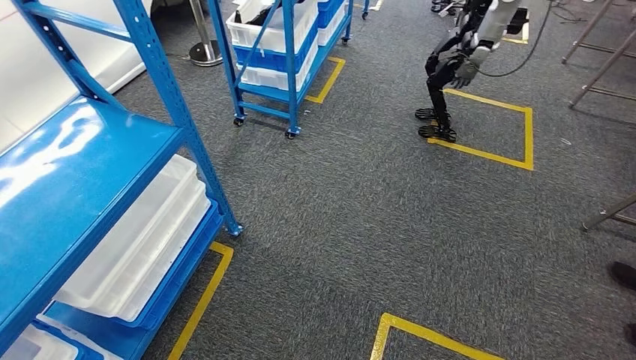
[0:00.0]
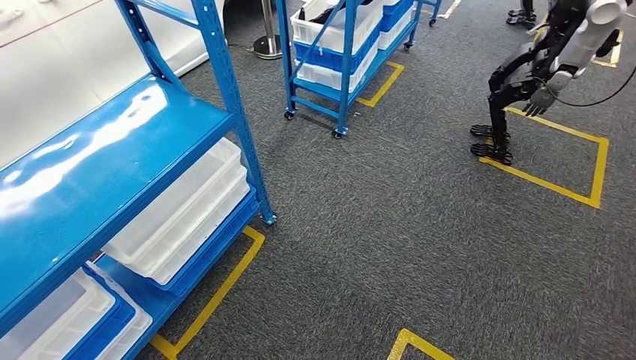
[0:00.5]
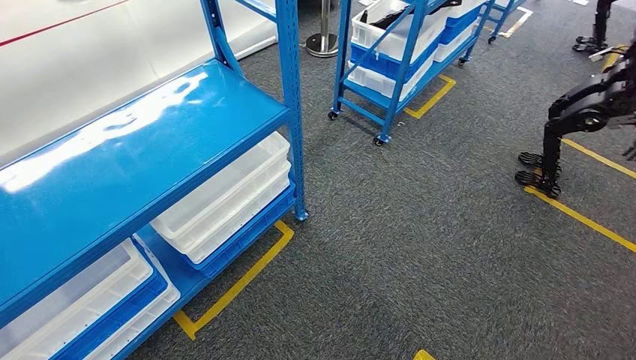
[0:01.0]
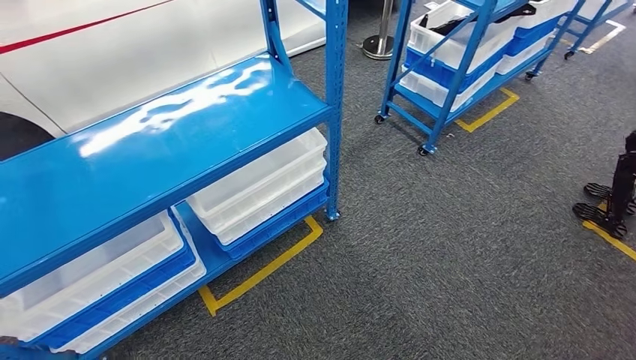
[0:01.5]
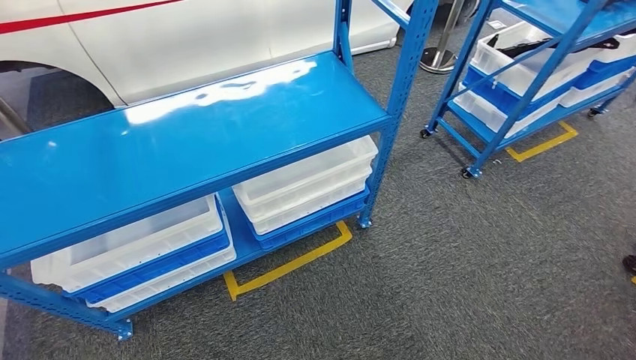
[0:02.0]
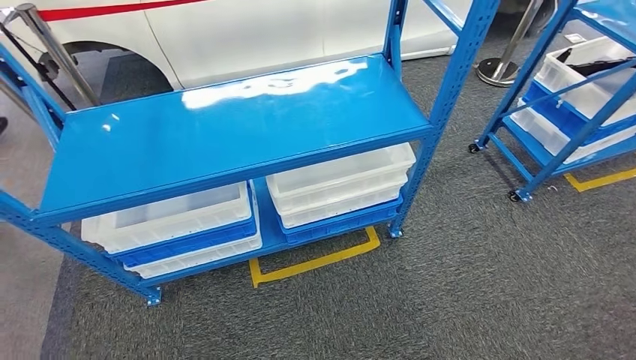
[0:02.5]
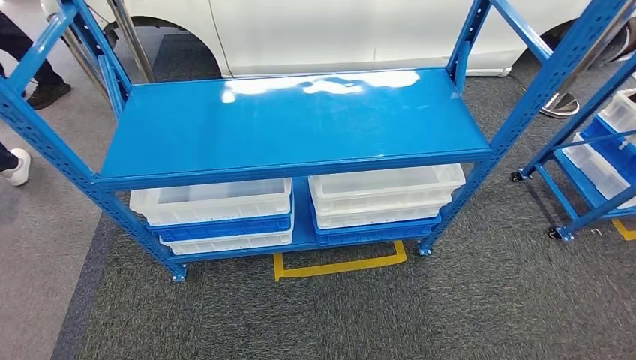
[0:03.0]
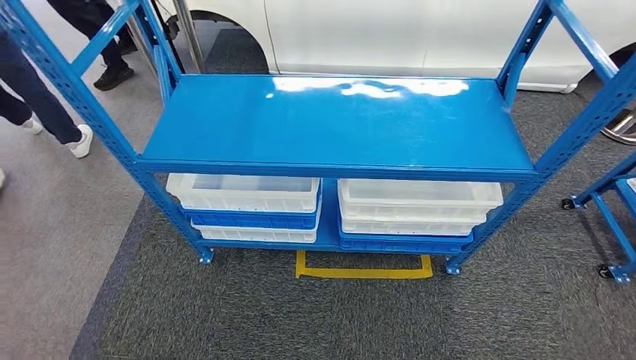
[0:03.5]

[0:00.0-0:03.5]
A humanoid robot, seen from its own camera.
Step, 0:00.0 to 0:03.5: Return to the initial position at the shelf.
